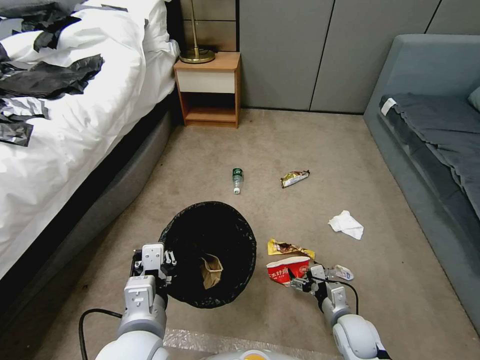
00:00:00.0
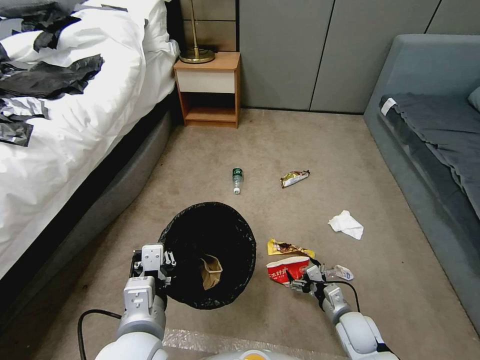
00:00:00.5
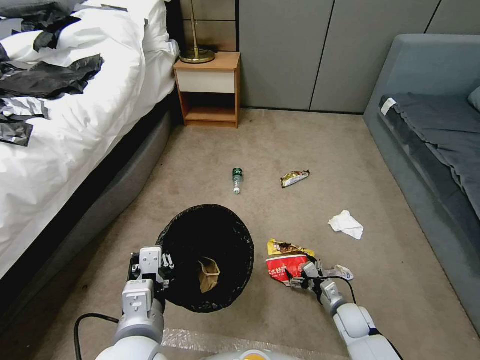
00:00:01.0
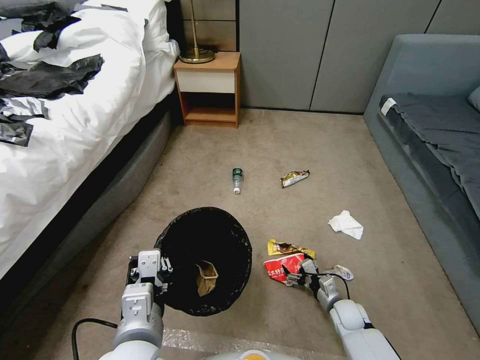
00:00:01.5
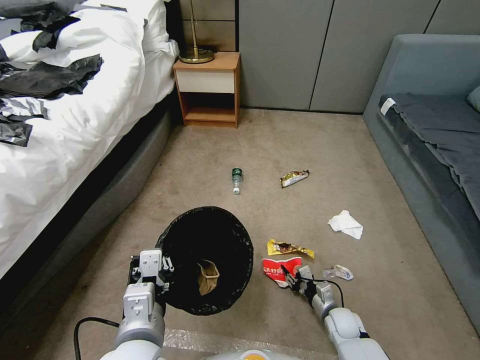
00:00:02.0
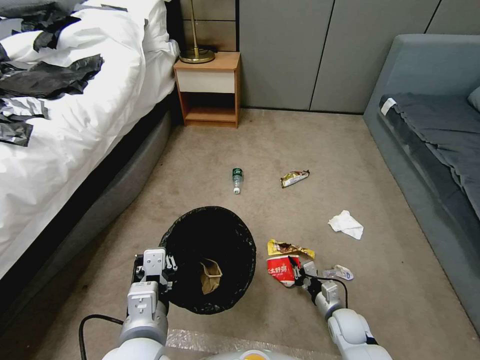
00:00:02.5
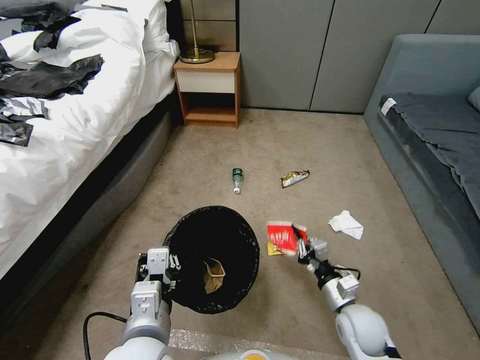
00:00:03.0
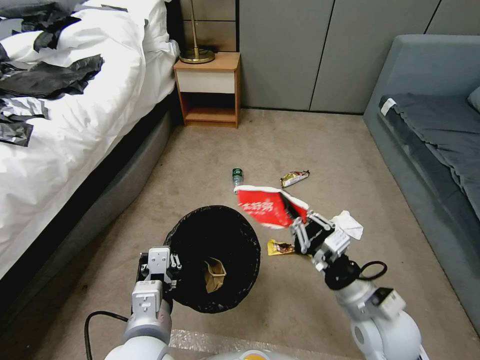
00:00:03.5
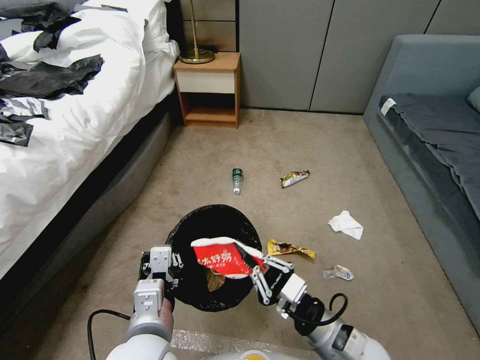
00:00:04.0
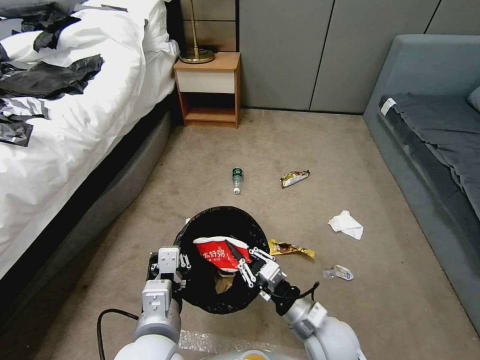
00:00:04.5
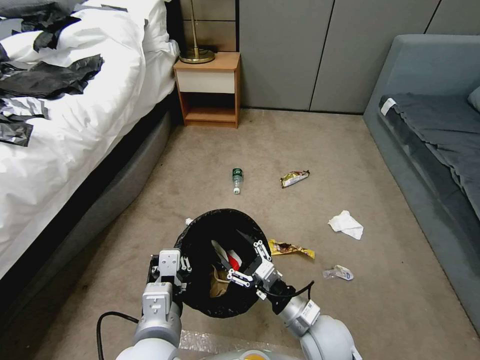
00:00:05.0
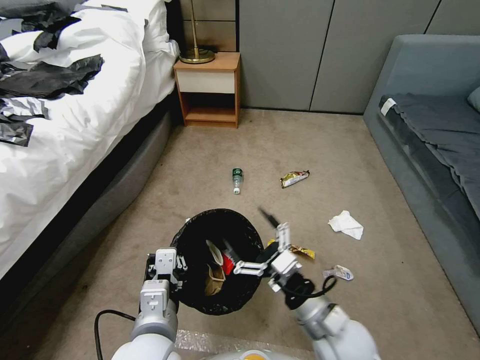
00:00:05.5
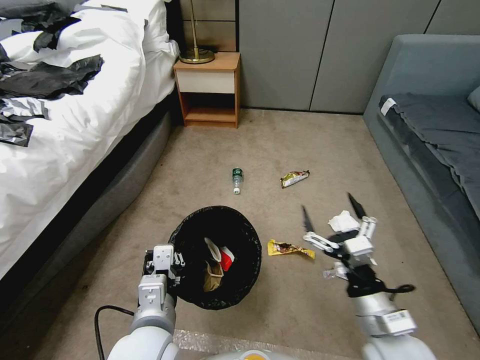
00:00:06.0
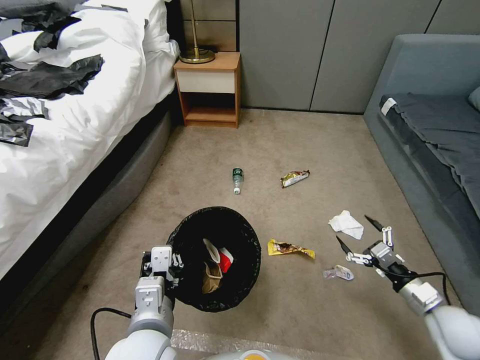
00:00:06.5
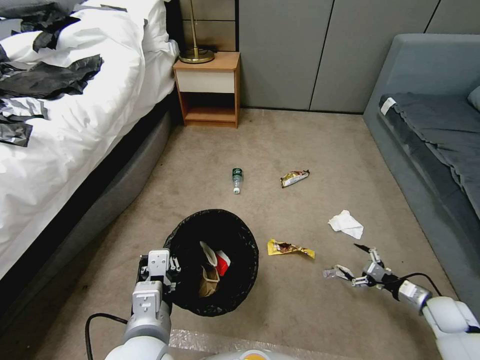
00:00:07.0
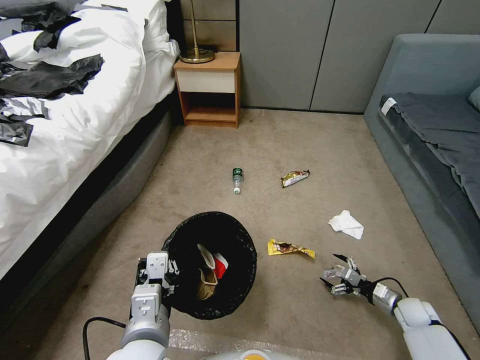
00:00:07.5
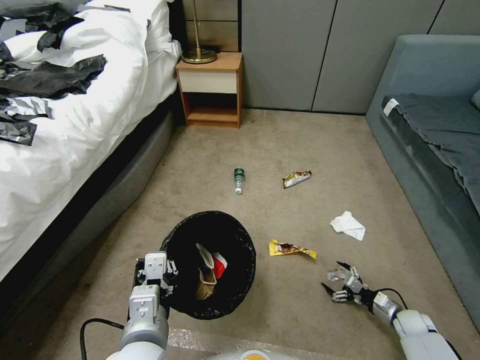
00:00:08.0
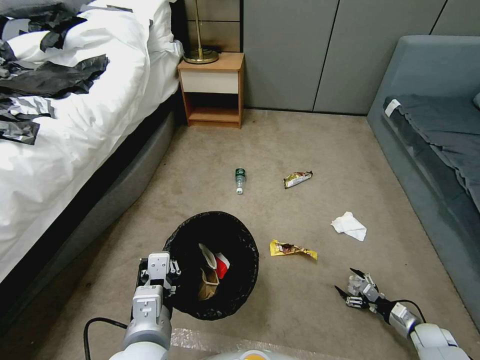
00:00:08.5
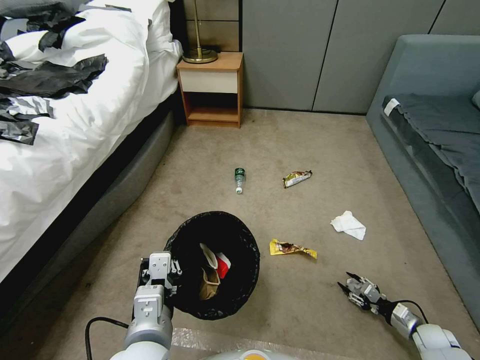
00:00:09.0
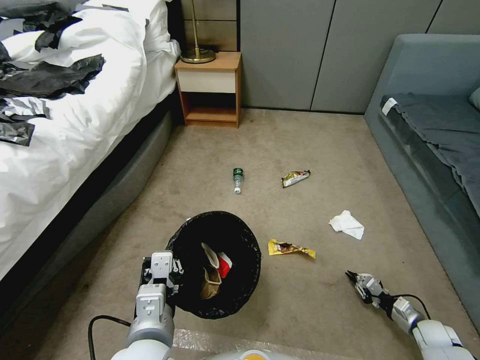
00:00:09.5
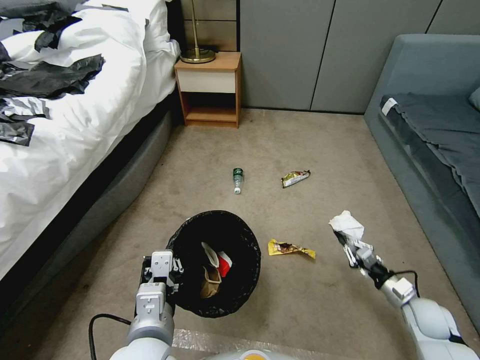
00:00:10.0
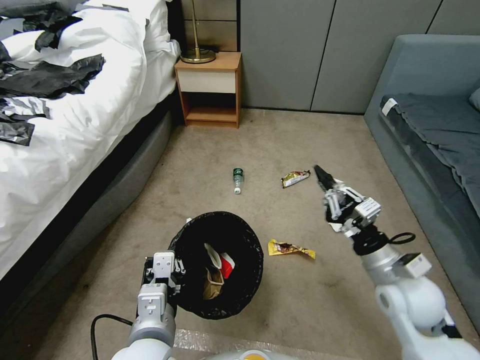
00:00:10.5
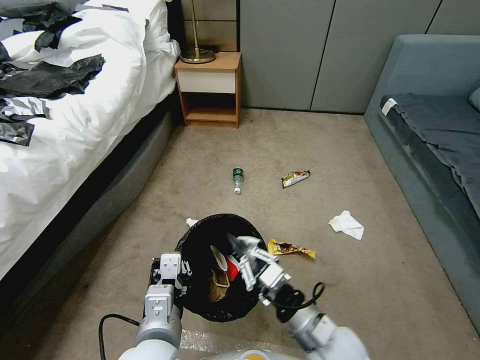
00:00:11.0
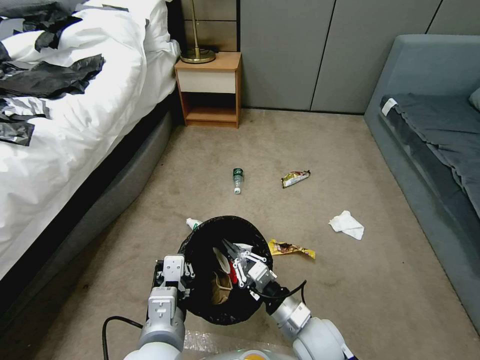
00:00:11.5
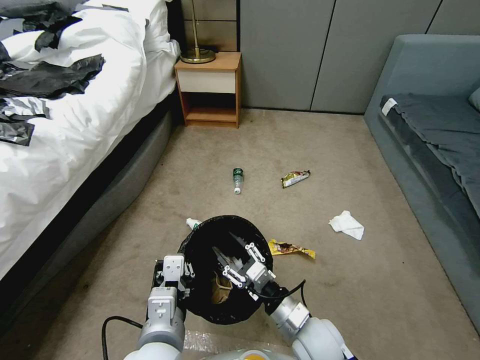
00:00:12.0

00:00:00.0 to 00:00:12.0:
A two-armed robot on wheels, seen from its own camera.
Task of the whole recording: Pick up the trash bin, then pick up the garbage from the floor and place it into the trash bin.
00:00:00.0 to 00:00:02.0: The right gripper goes approximately 10 cm downward, and closes.
00:00:02.0 to 00:00:04.0: The right gripper travels upward by roughly 25 cm, and closes up.
00:00:04.0 to 00:00:06.0: The right gripper travels to the right by some 5 cm, and opens up.
00:00:06.0 to 00:00:08.0: The right gripper travels downward and to the right by approximately 35 cm.
00:00:08.0 to 00:00:10.0: The right gripper moves upward, about 10 cm, and closes up.
00:00:10.0 to 00:00:12.0: The right gripper heads to the left, covering about 30 cm, and opens its fingers.

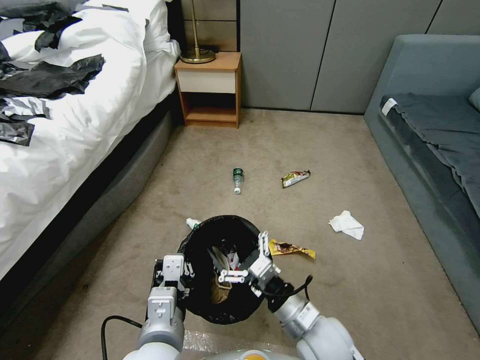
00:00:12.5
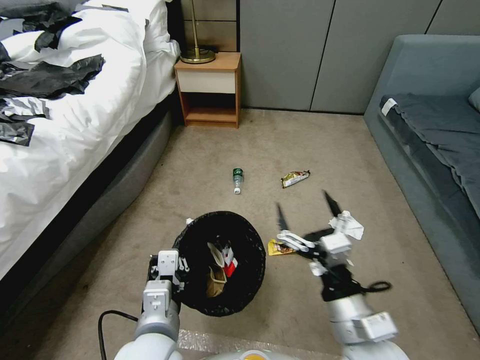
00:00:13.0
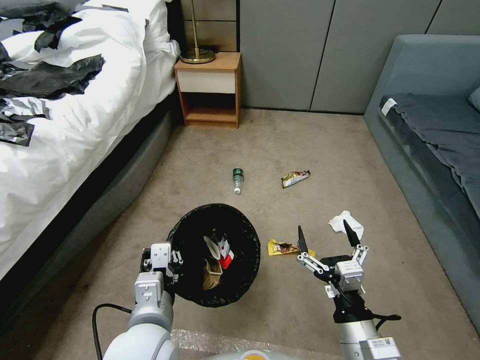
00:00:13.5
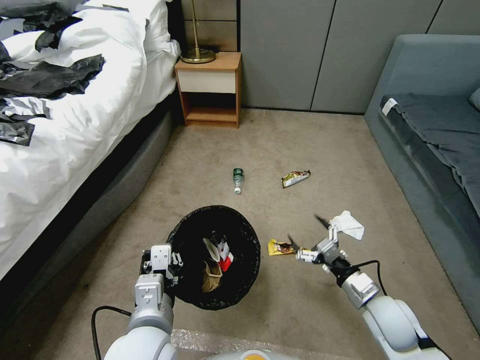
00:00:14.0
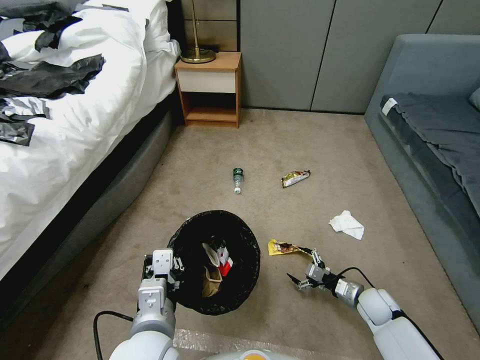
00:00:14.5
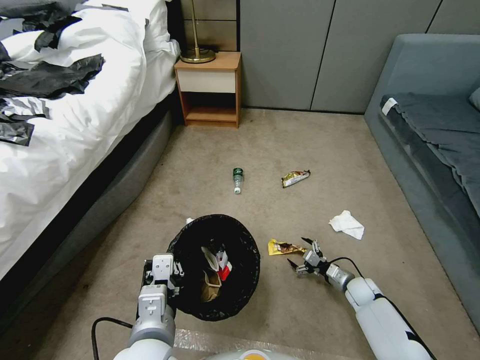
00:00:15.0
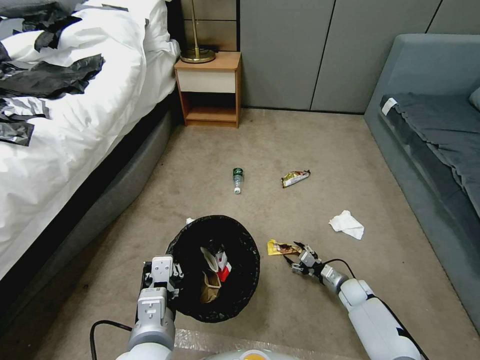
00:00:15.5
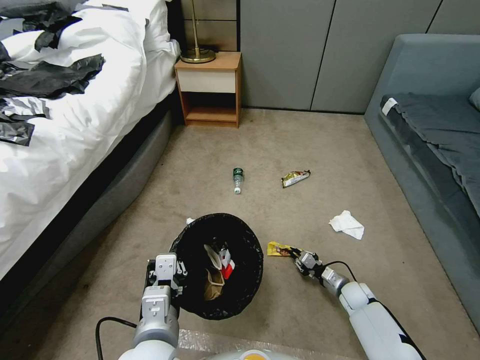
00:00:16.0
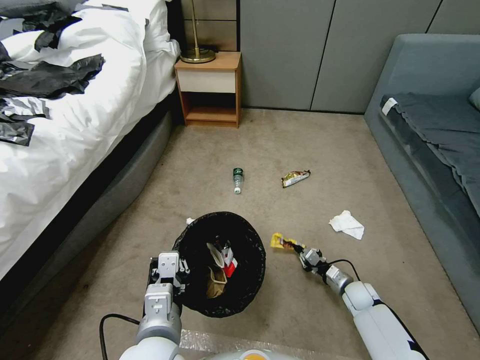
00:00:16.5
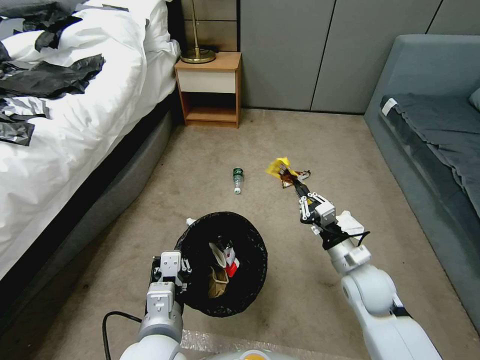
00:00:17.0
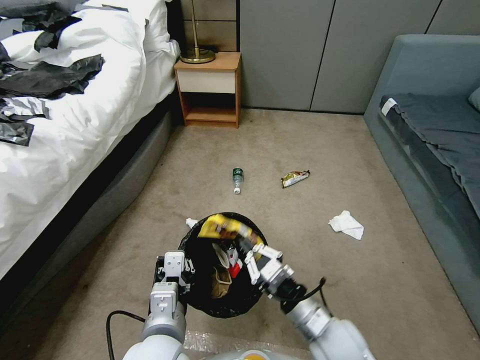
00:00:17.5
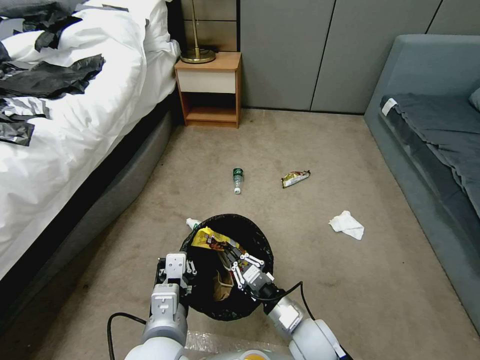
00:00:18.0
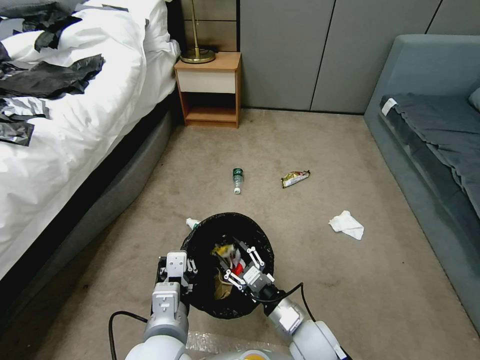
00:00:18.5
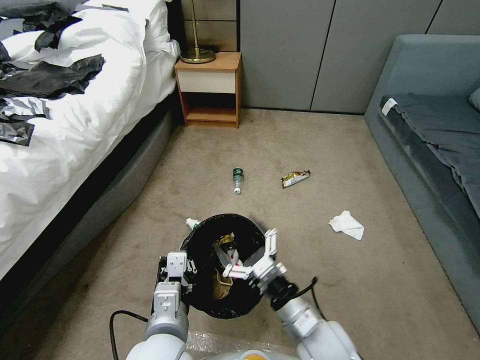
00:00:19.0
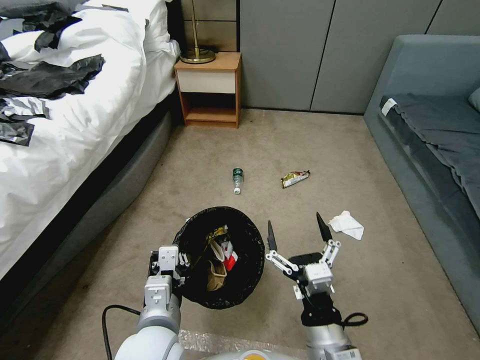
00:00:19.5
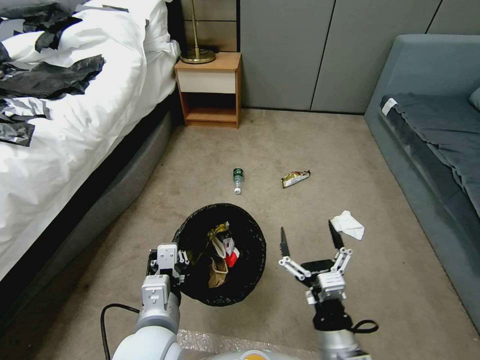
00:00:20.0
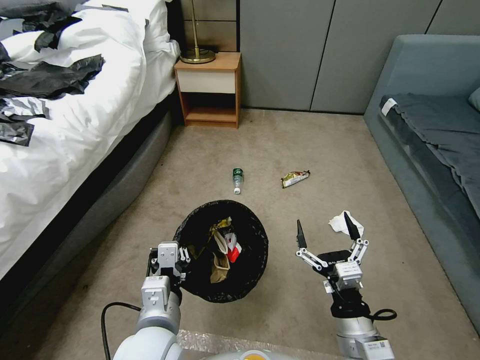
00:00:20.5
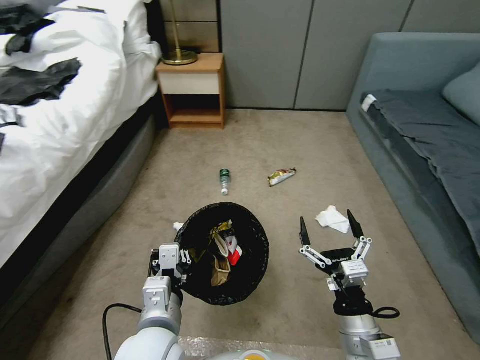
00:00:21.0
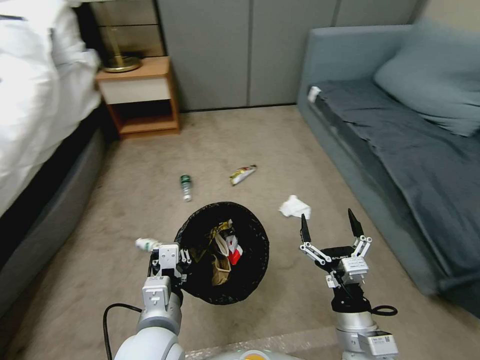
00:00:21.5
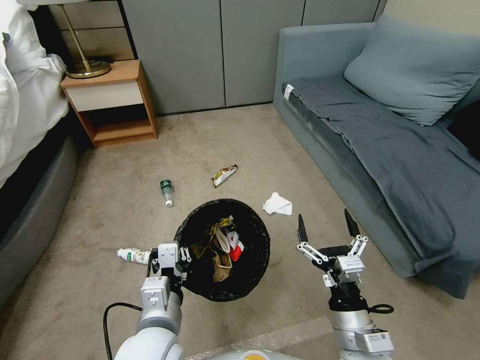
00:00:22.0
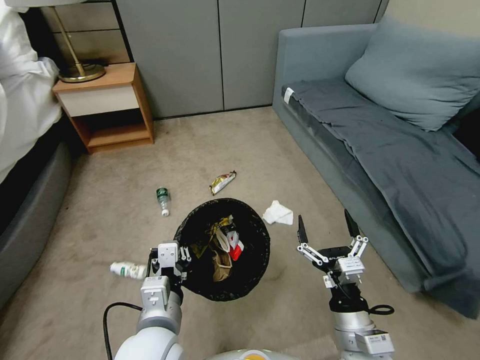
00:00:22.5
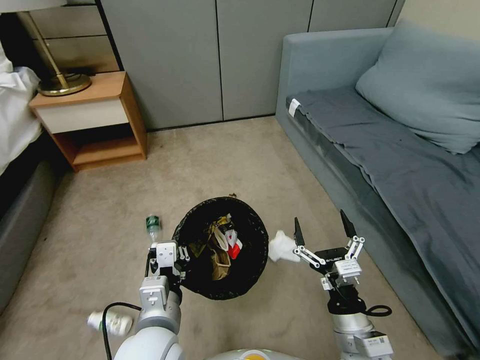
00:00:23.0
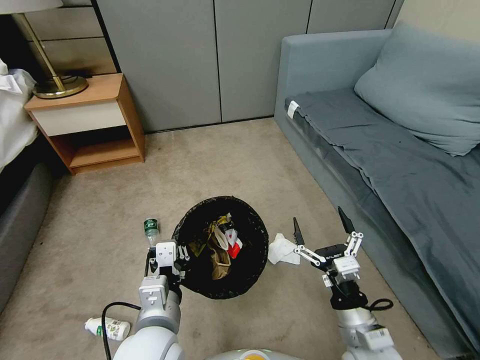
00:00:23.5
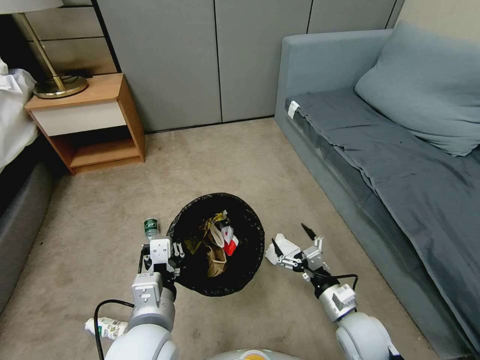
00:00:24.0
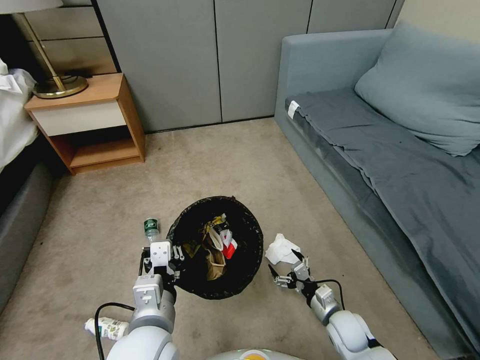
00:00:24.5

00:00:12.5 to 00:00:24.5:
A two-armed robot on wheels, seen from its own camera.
Task of the whole recording: Pick up the trash bin, then pick up the garbage from the floor and place it into the trash bin.
00:00:12.5 to 00:00:14.5: The right gripper goes about 30 cm to the right, downward and forward.
00:00:14.5 to 00:00:16.5: The right gripper changes place by approximately 5 cm, and closes its fingers.
00:00:16.5 to 00:00:18.5: The right gripper travels to the left, upward and backward by about 30 cm, and opens its fingers.
00:00:18.5 to 00:00:20.5: The right gripper is displaced upward, to the right and backward by about 10 cm, and opens its fingers.
00:00:22.5 to 00:00:24.5: The right gripper is displaced downward and forward by about 20 cm.

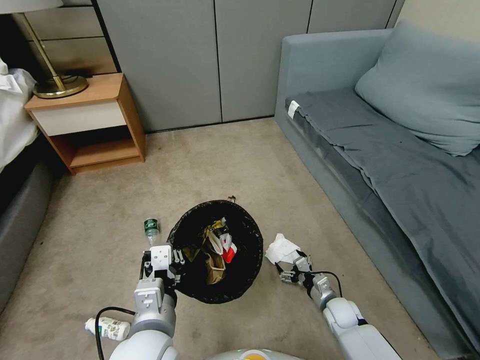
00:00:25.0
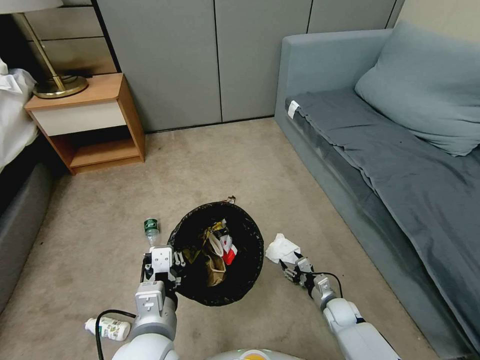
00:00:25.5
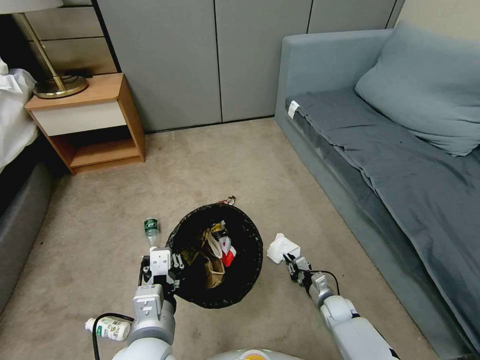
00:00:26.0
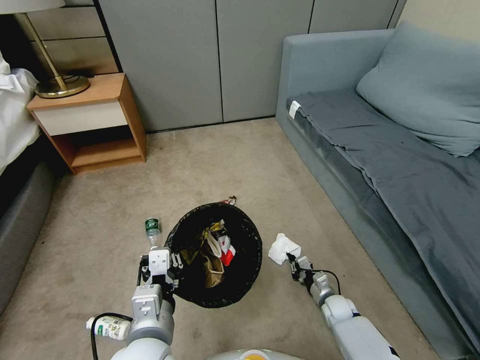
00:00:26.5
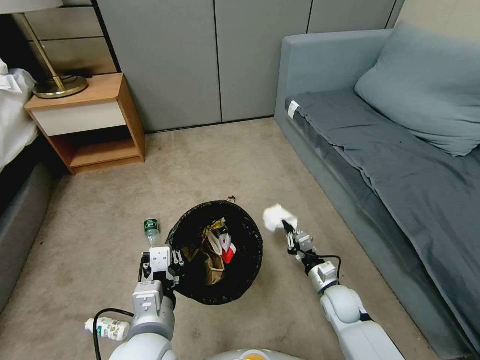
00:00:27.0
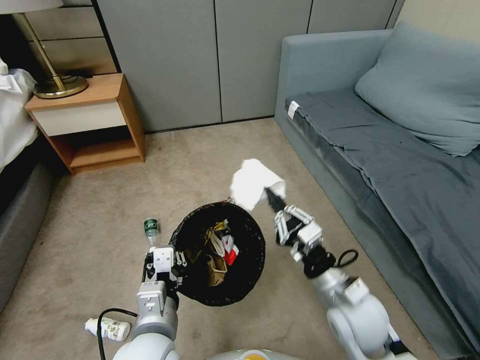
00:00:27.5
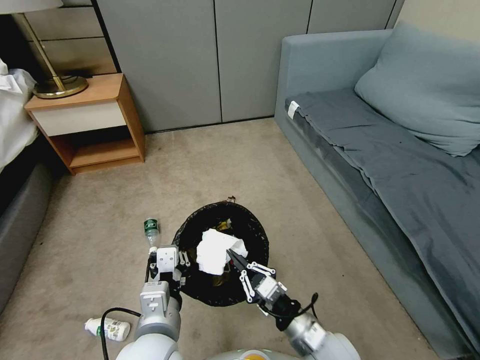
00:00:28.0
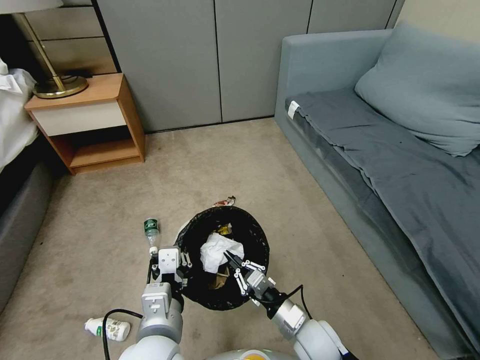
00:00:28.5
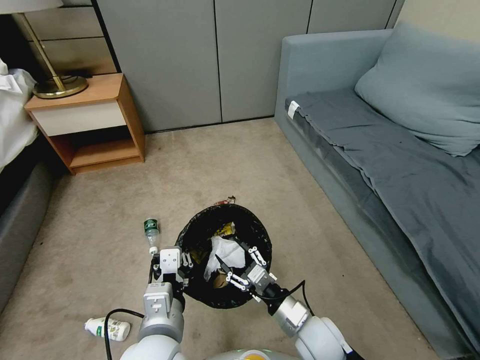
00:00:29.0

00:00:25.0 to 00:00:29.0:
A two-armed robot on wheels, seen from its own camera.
Task of the whole recording: Pick up the trash bin, then pick up the garbage from the floor and place it into the trash bin.
00:00:25.0 to 00:00:27.0: The right gripper shifts approximately 10 cm upward, and closes.
00:00:27.0 to 00:00:29.0: The right gripper heads to the left, backward and upward, covering about 15 cm, and opens up.
